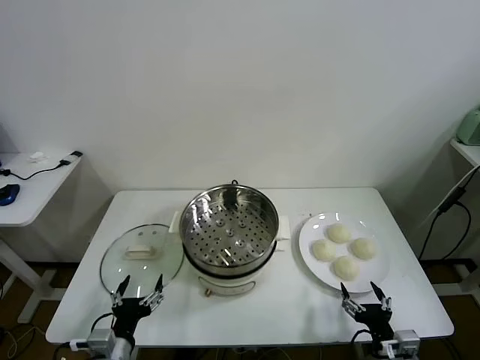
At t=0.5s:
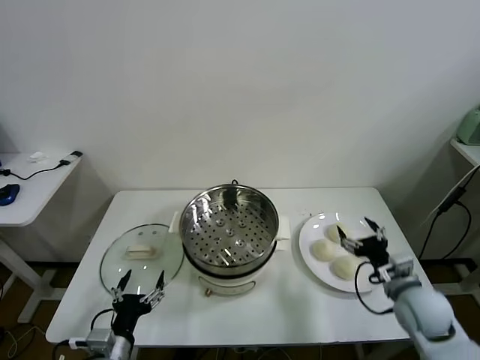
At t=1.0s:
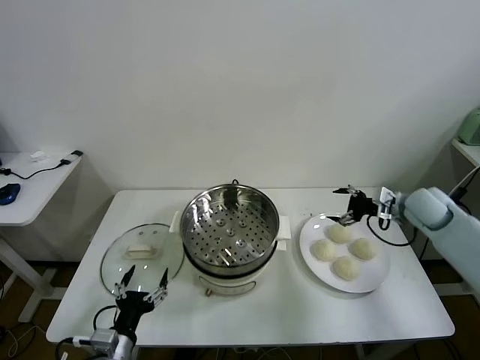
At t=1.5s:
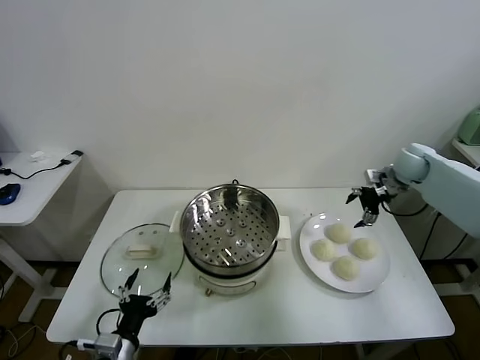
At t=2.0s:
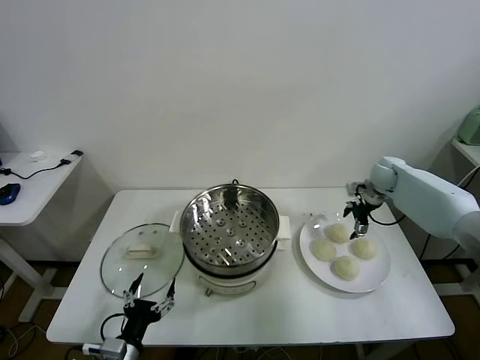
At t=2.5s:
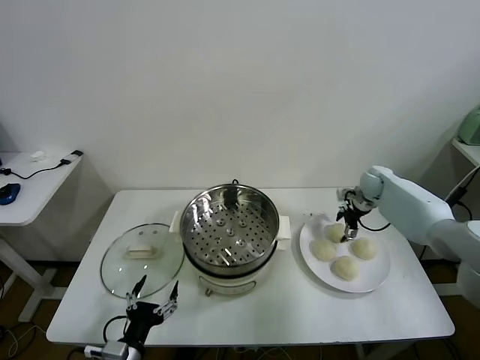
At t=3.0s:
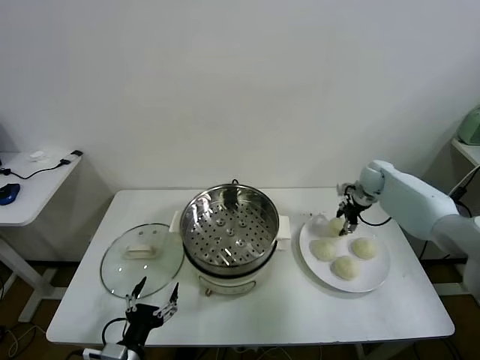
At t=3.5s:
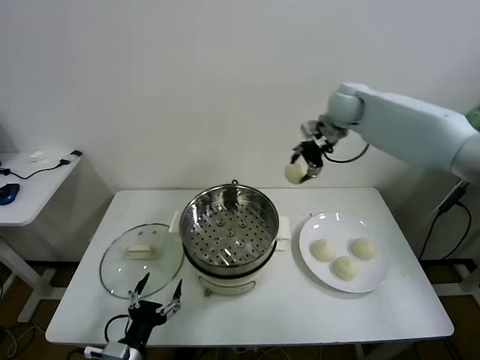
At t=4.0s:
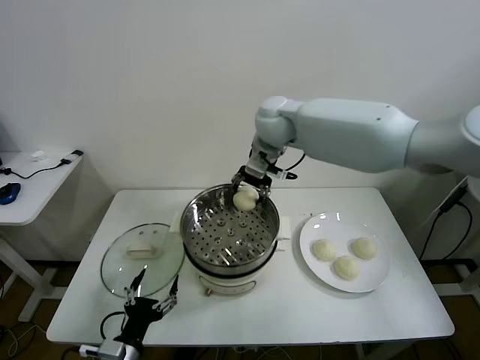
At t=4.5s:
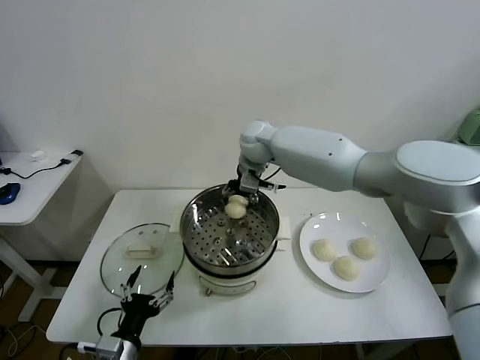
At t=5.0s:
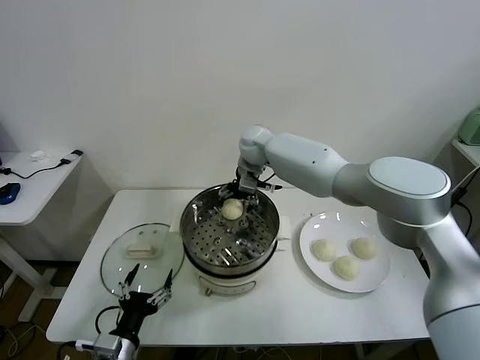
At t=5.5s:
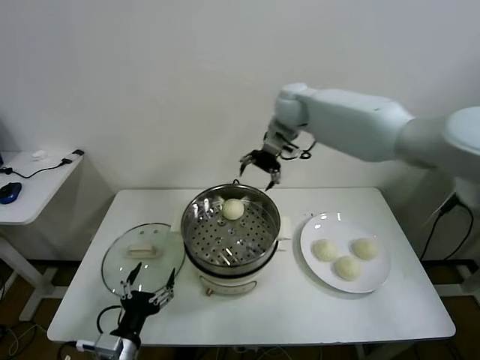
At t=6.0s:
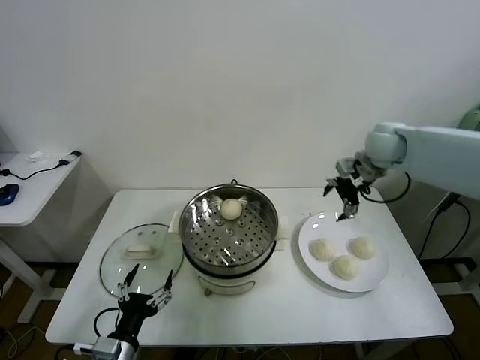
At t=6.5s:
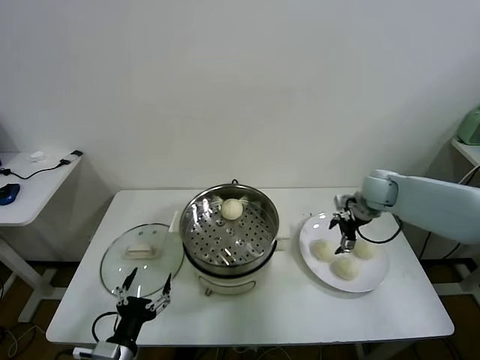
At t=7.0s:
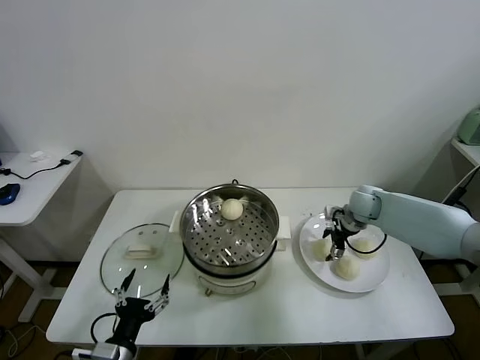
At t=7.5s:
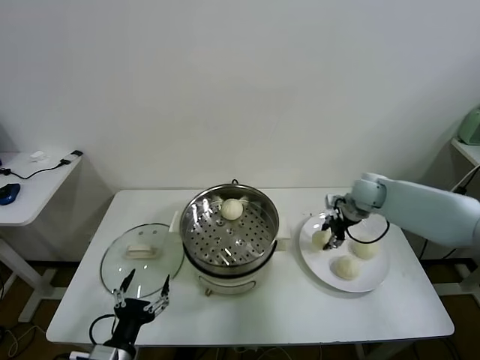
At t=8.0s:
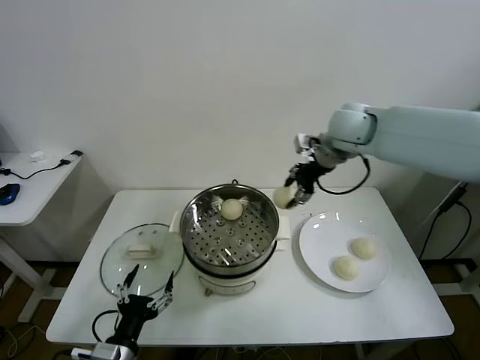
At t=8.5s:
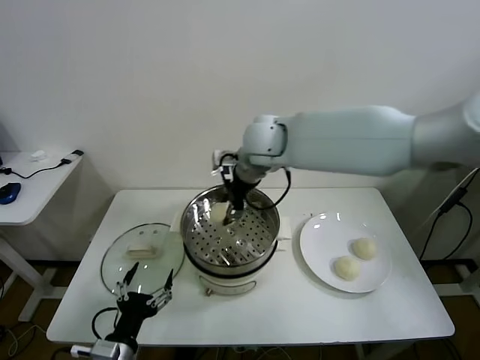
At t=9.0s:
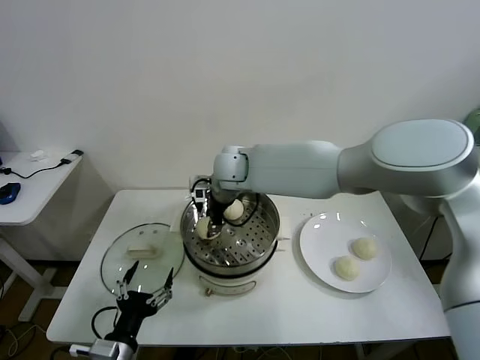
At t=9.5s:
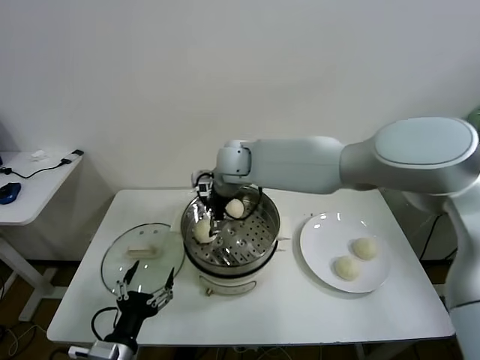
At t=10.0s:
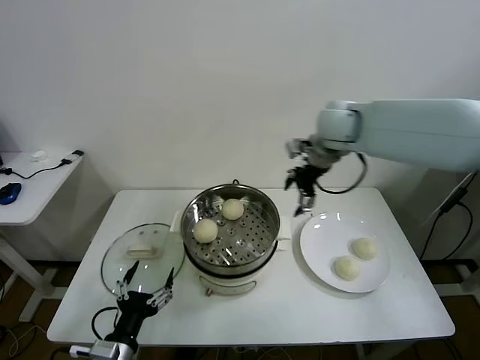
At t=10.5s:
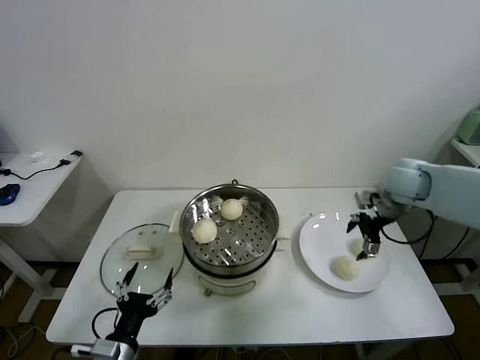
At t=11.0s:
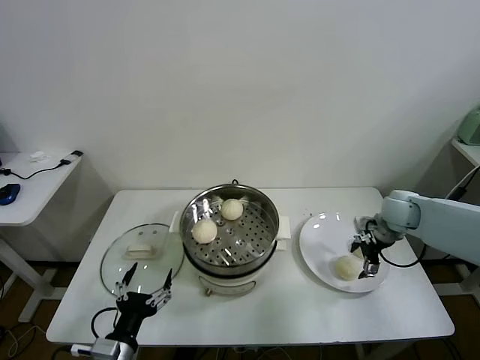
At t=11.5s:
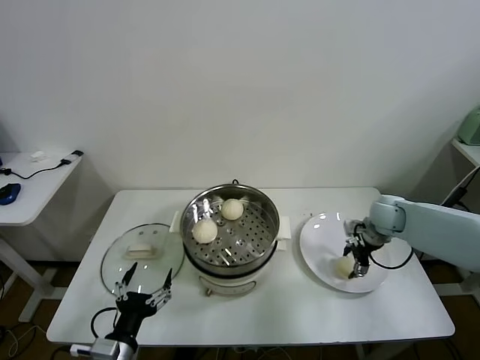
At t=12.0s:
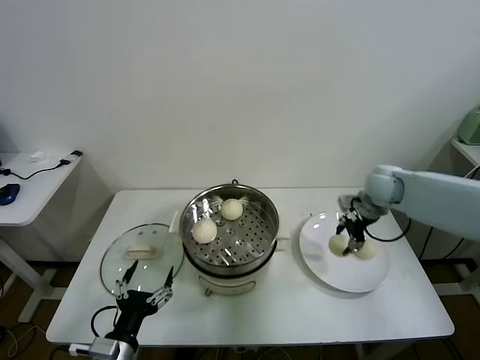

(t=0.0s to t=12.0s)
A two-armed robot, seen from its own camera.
Task of the whole recording: take steamed baozi put them in steamer.
Step, t=0.0s - t=2.5s: Grasp the baozi in the plate with right gripper.
Step, t=3.0s - t=5.0s: Place the baozi on the steamer with right gripper.
Step, t=5.5s - t=7.0s: Grasp the baozi in the plate with right gripper.
Step, t=7.5s - t=9.0s: Place the baozi on the steamer with right gripper.
Step, t=9.5s - t=11.5s: Grasp the baozi in the plate with right gripper.
t=2.0s - t=4.0s: The right gripper goes approximately 40 cm to the left and upward, and closes its fingers.
t=4.0s - t=6.0s: The right gripper moves to the right, approximately 30 cm, and opens.
t=6.0s - t=8.0s: The right gripper travels to the left and upward by approximately 20 cm, and closes its fingers.
t=8.0s - t=10.0s: The right gripper travels to the left and back again, roughly 20 cm each way, and opens up.
t=10.0s - t=12.0s: The right gripper shifts approximately 15 cm downward and to the right, and closes.

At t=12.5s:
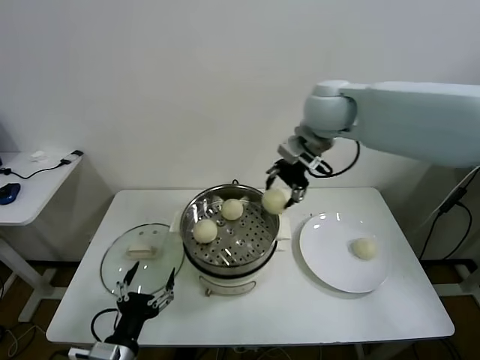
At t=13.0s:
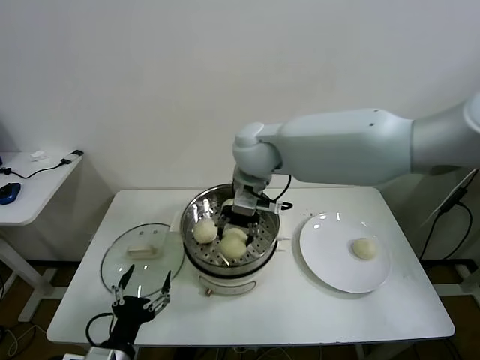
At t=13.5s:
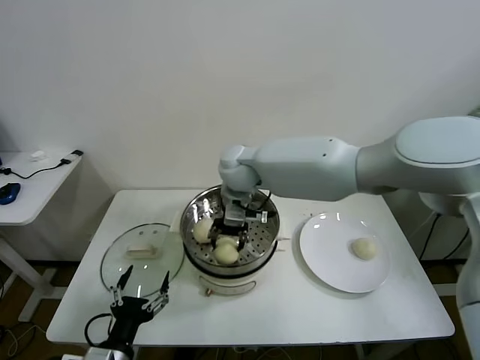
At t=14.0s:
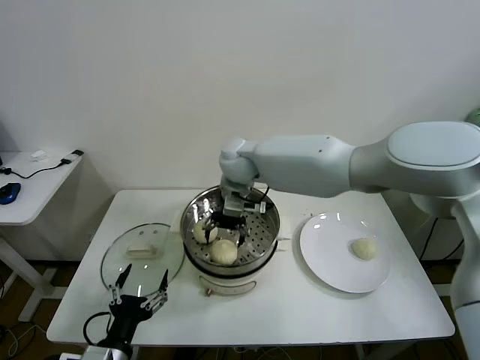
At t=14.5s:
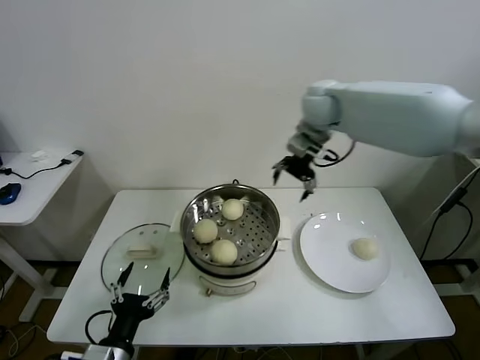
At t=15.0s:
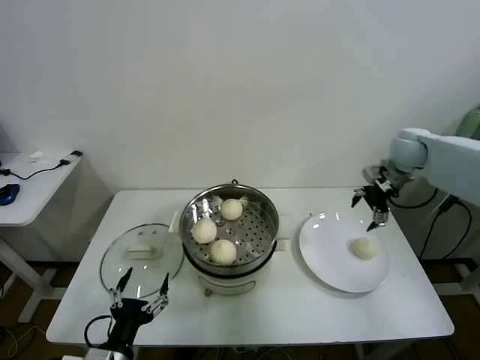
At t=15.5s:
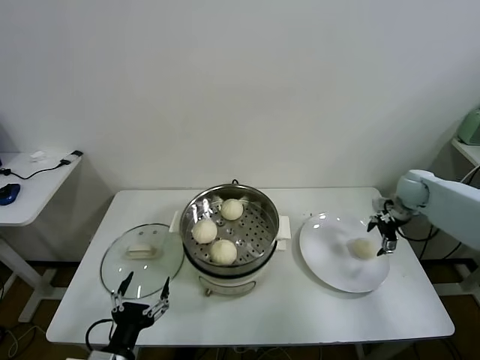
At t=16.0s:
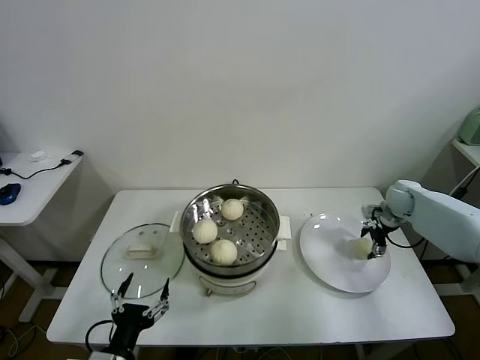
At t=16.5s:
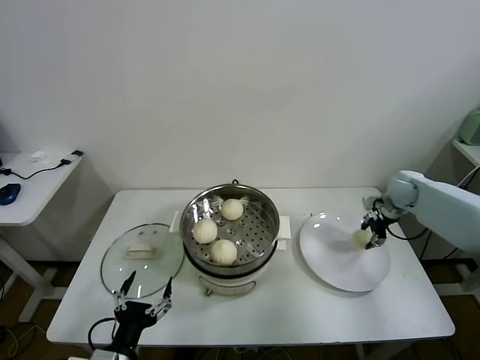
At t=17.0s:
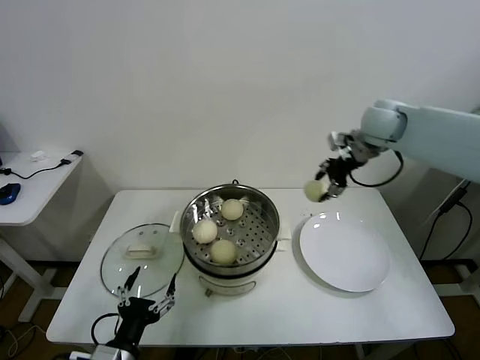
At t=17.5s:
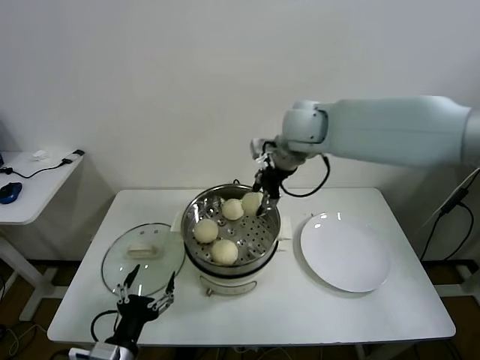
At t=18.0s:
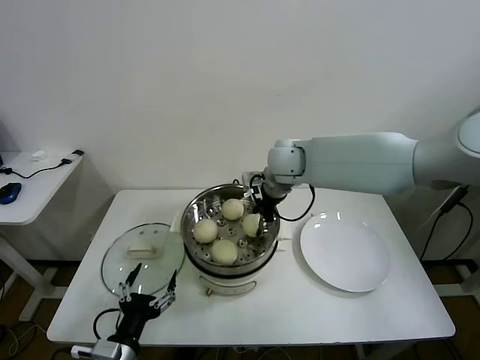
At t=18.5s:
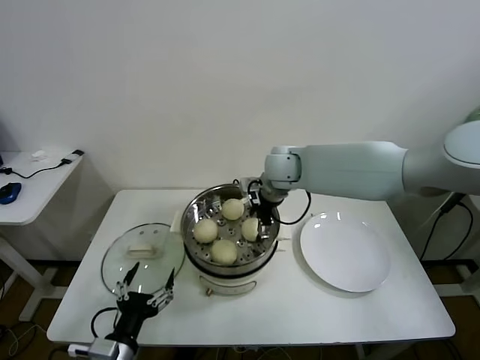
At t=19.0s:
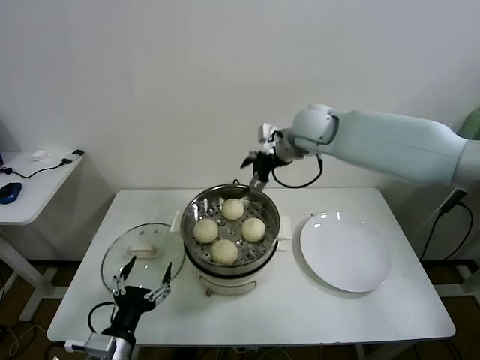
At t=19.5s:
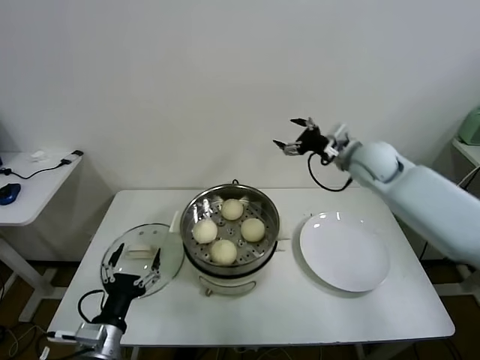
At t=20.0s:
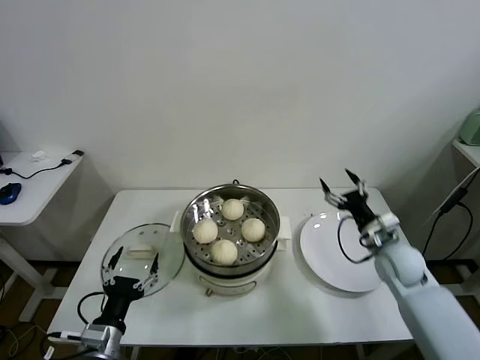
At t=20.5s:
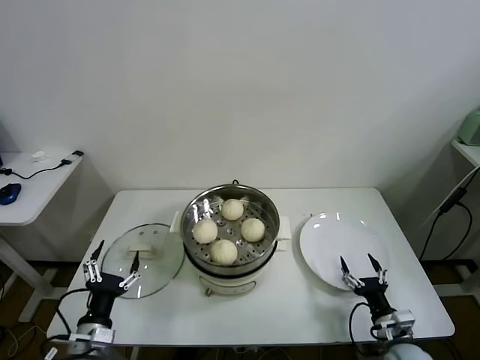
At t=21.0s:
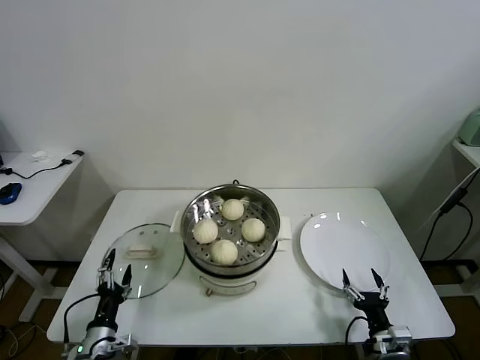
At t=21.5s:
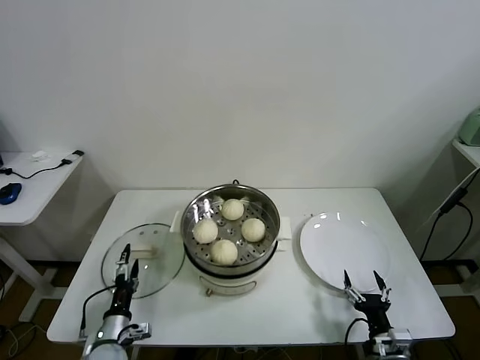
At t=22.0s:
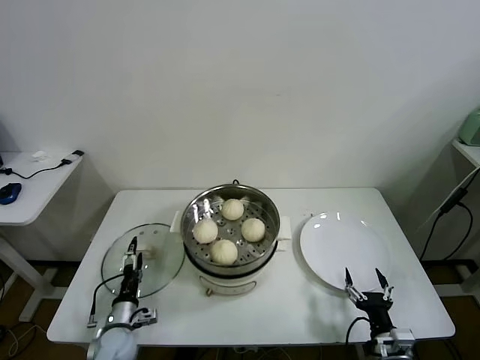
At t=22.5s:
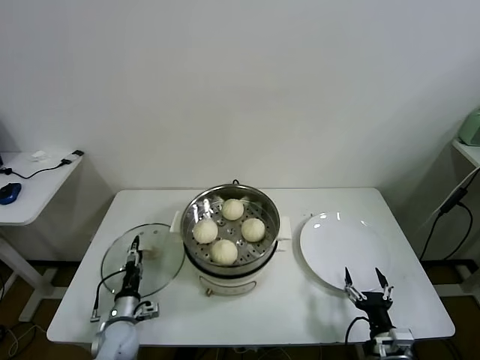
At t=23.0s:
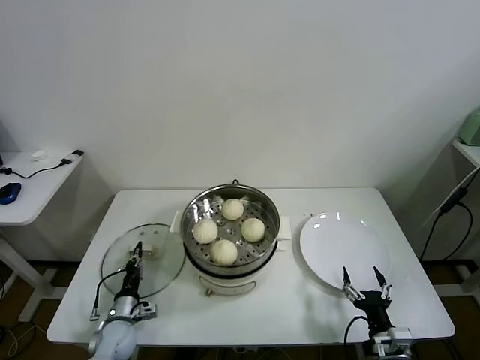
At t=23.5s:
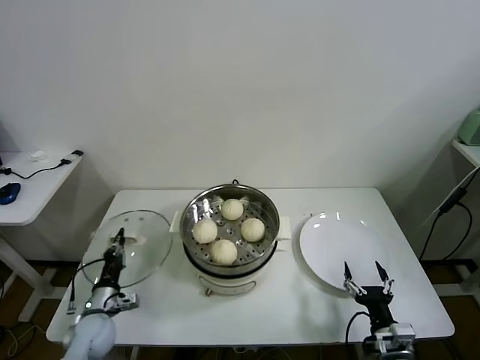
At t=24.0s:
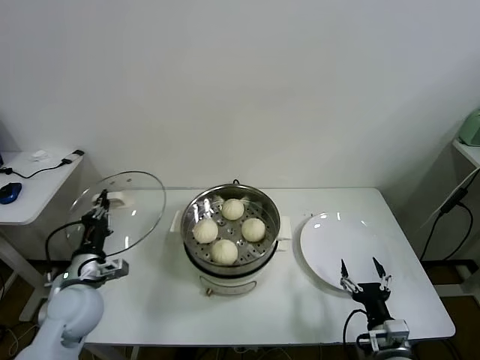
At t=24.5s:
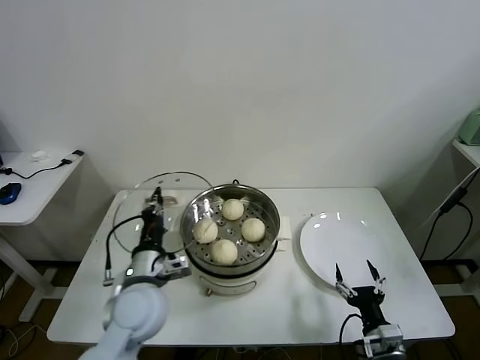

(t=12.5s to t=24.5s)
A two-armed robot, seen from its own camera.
Task of the whole recording: take steamed baozi put them in steamer.
Step, t=14.0s - t=16.0s: Grasp the baozi in the plate with right gripper.
Step, t=16.5s - t=18.0s: Place the baozi on the steamer with right gripper.
Step, t=18.5s - t=23.0s: Grasp the pot lid with left gripper.
t=12.5s - t=14.5s: The right gripper is displaced forward by approximately 5 cm, goes to the left and returns, about 15 cm each way, and opens up.
t=14.5s - t=16.5s: The right gripper is displaced to the right and downward by roughly 35 cm, and closes its fingers.
t=16.5s - t=18.5s: The right gripper travels to the left by some 35 cm, and opens its fingers.
t=18.5s - t=20.5s: The left gripper goes about 5 cm to the left. The right gripper heads backward, downward and to the right, covering approximately 50 cm.
t=20.5s - t=22.5s: The right gripper changes place by approximately 5 cm; the left gripper is displaced downward and forward by about 15 cm.
t=22.5s - t=24.5s: The left gripper heads upward and to the right, covering roughly 25 cm, and closes.

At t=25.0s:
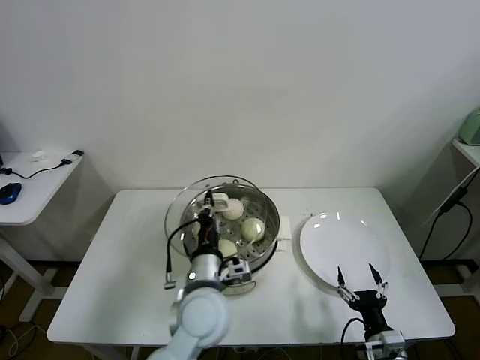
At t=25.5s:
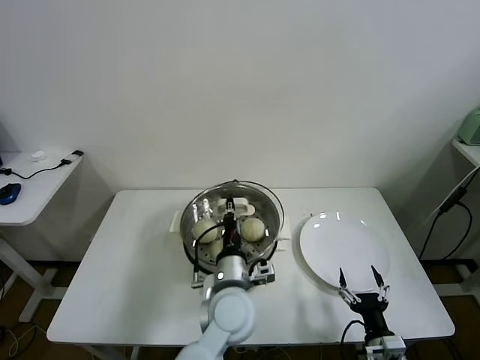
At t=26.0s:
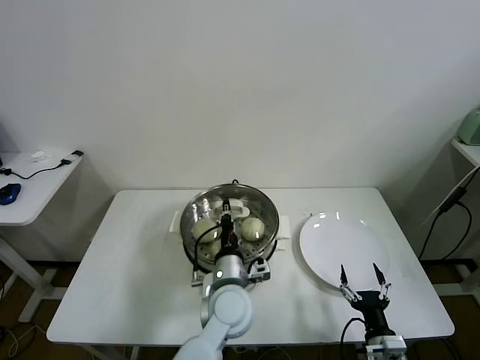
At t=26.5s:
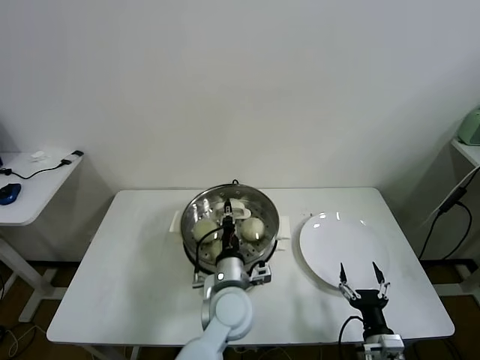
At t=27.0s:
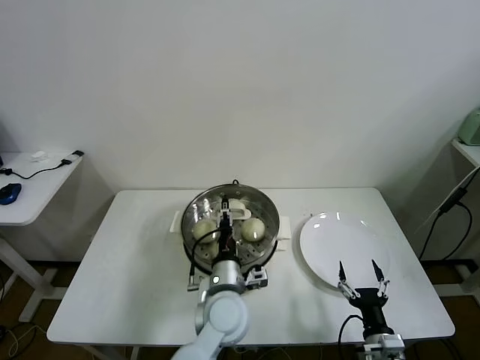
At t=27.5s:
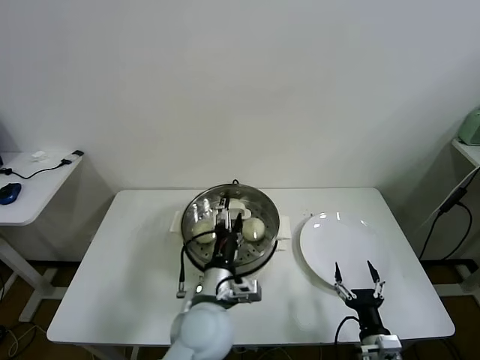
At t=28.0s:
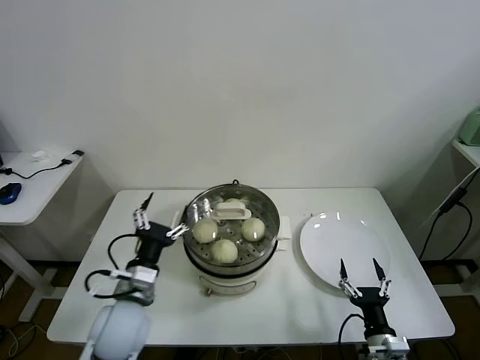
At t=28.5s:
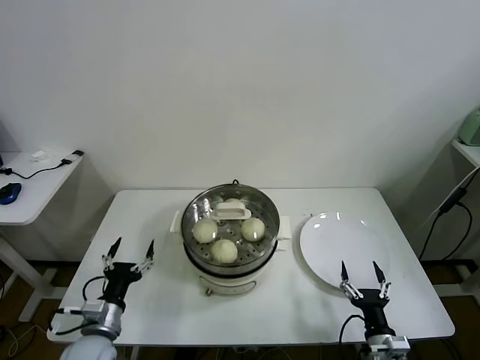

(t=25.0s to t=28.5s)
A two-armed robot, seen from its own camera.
Task of the whole recording: take steamed baozi put them in steamer.
Step, t=25.0s - t=27.0s: Place the pot lid on the steamer with left gripper.
t=25.0s - t=27.0s: The left gripper travels downward and to the right by some 10 cm, and opens its fingers.
t=27.0s - t=28.5s: The left gripper heads to the left, covering approximately 25 cm, and opens.
